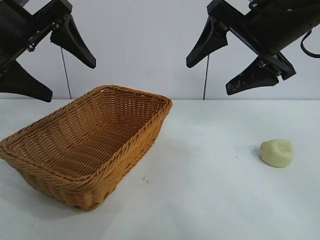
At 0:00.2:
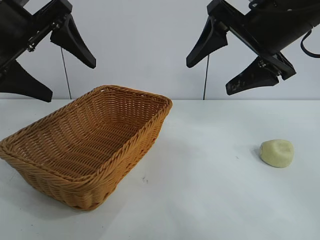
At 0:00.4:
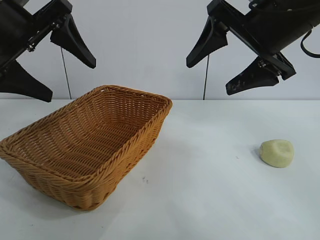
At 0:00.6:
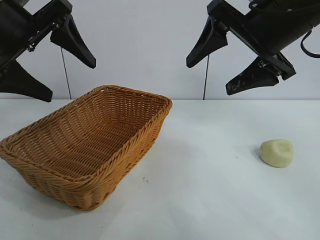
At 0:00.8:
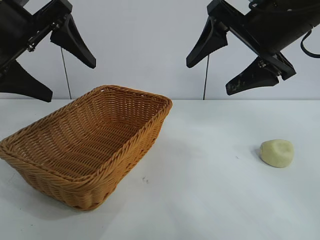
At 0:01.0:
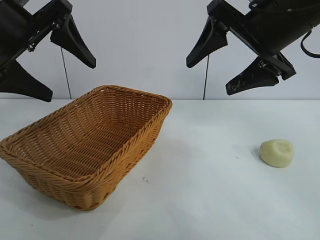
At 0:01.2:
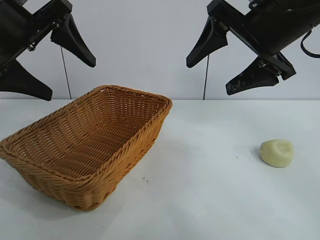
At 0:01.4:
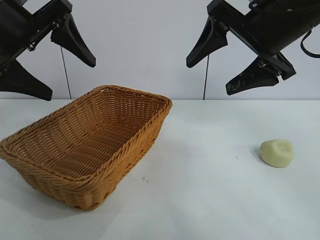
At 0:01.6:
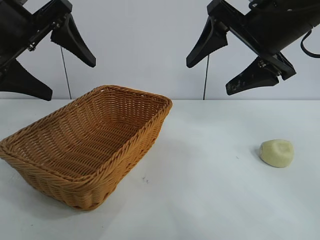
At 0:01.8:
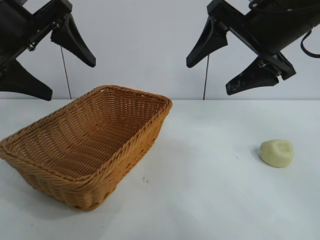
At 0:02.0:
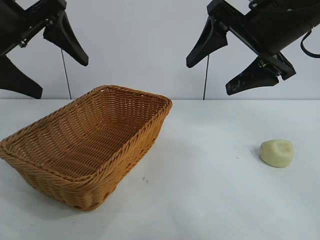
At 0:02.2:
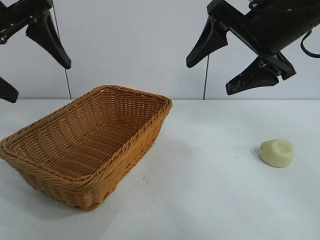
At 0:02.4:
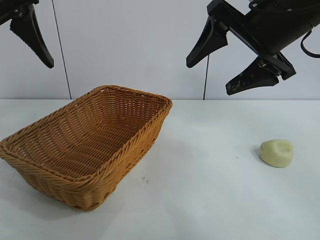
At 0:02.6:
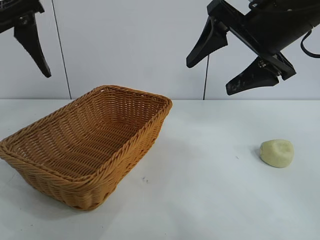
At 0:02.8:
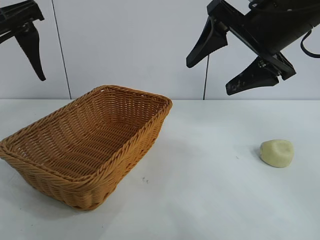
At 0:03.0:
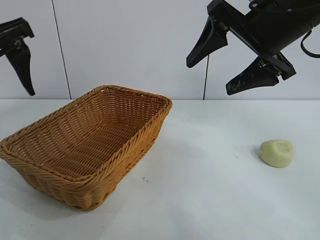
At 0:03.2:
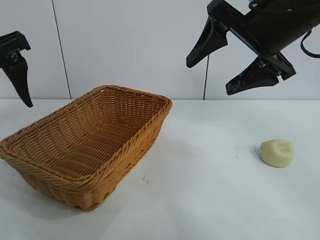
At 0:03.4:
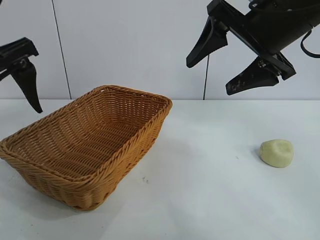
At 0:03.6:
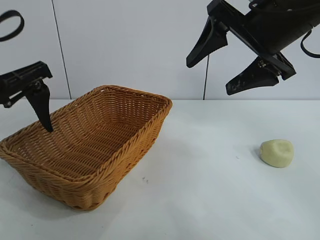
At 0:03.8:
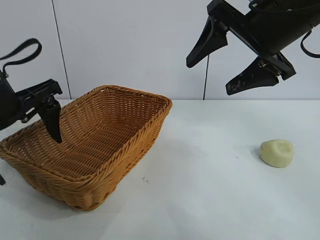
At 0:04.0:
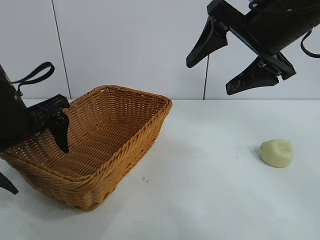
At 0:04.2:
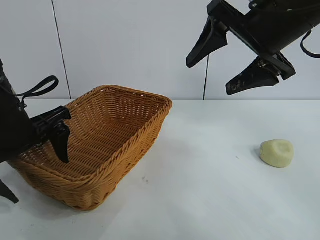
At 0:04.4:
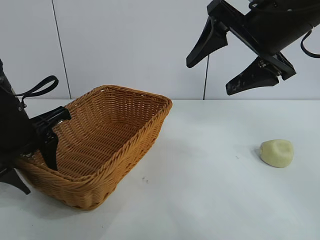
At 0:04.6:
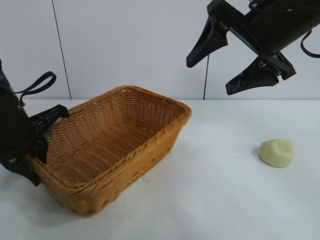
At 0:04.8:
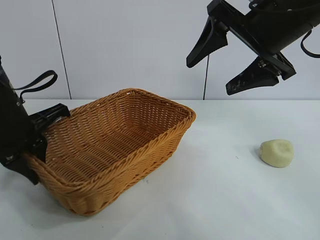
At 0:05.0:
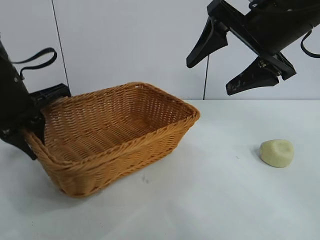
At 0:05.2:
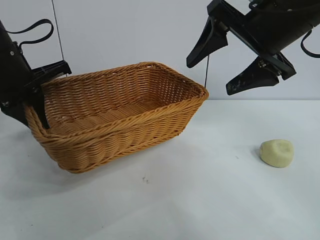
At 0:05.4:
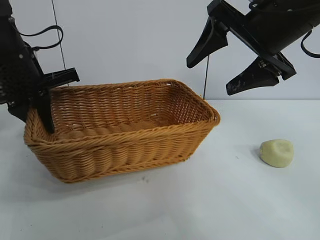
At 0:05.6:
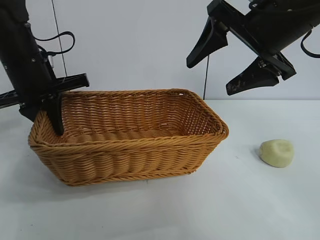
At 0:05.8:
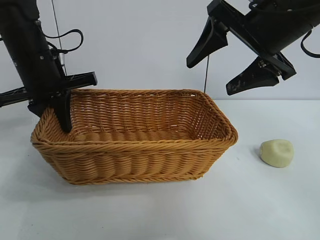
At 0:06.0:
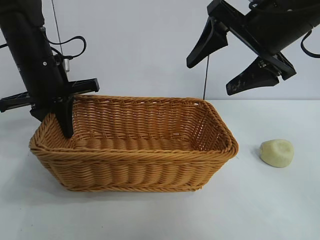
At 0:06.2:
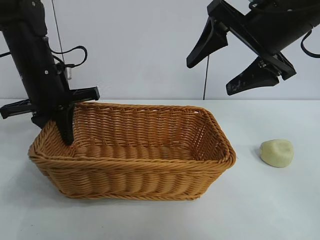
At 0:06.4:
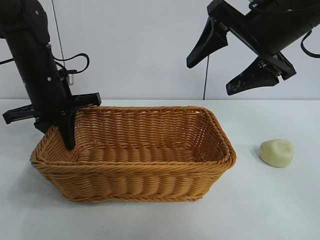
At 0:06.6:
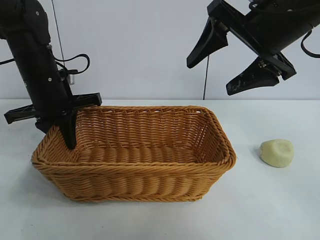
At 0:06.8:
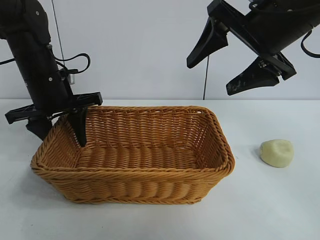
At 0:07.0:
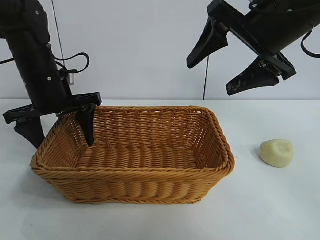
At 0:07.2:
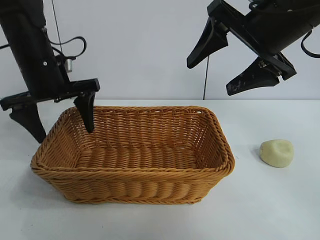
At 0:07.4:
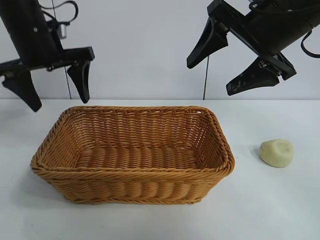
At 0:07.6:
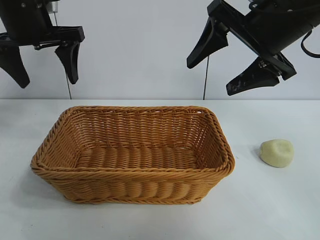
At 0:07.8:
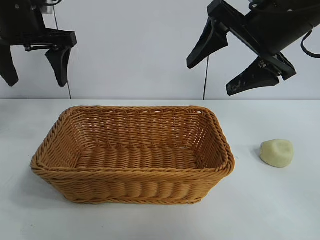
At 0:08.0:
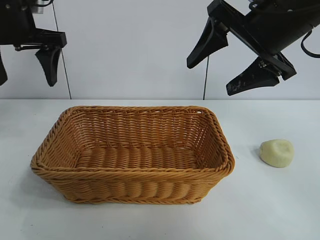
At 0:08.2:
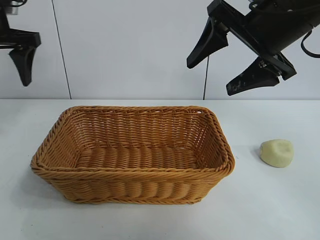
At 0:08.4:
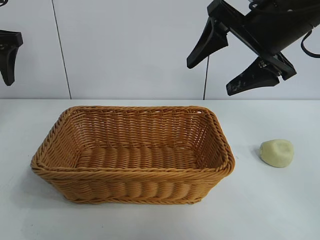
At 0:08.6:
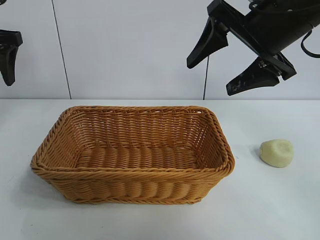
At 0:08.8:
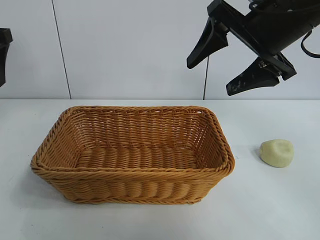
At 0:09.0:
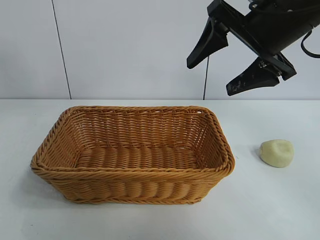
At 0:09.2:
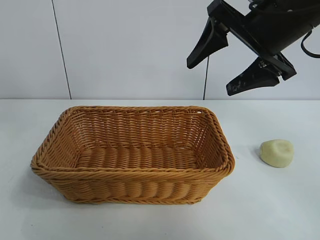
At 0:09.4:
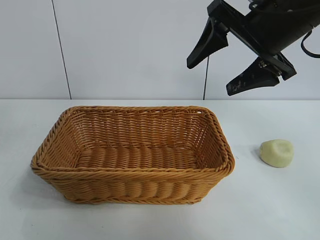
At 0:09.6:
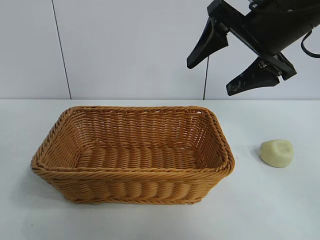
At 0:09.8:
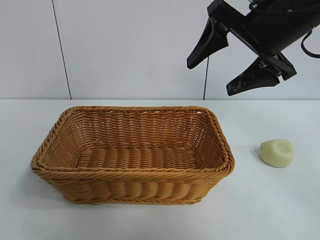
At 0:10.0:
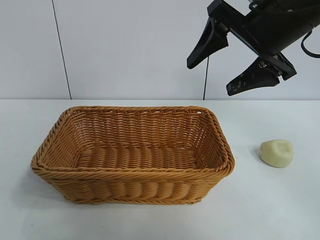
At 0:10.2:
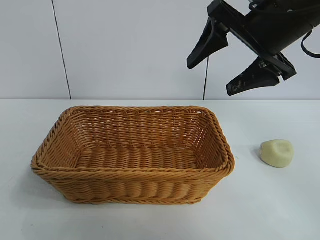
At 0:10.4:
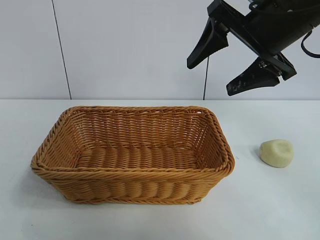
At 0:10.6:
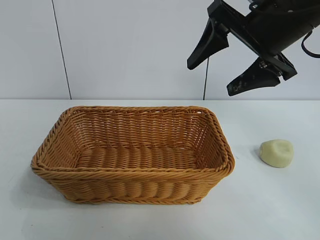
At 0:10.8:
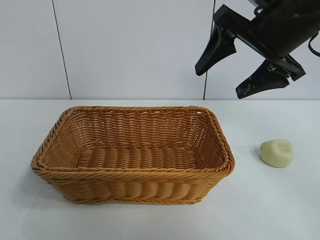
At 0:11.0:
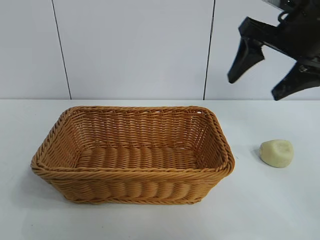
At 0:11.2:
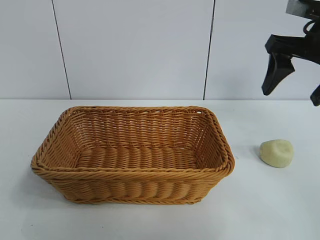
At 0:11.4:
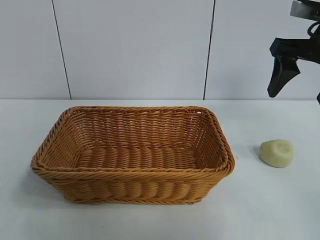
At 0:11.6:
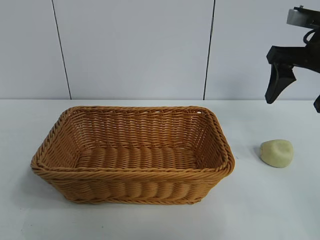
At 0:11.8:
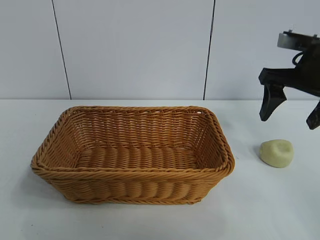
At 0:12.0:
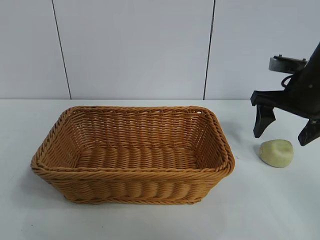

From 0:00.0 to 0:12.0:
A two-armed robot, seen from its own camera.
Task of the whole recording: pick up the egg yolk pastry and put it into the basket.
Step, from 0:01.0 to 0:04.4: Grasp the basket with left gripper.
Step, from 0:04.8 to 0:06.6: Place the basket in the center of view with left gripper.

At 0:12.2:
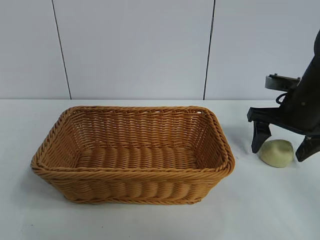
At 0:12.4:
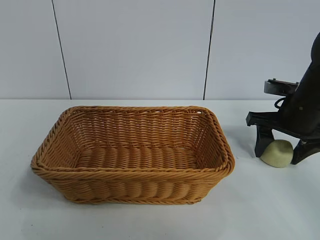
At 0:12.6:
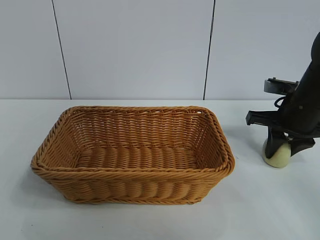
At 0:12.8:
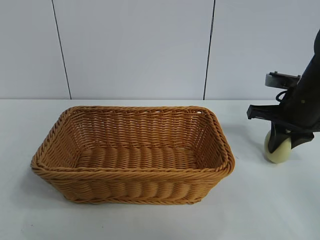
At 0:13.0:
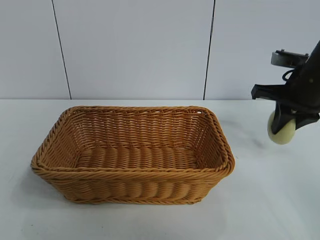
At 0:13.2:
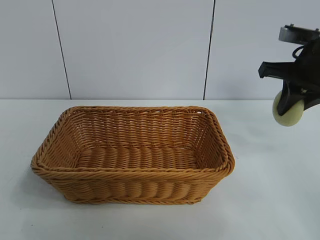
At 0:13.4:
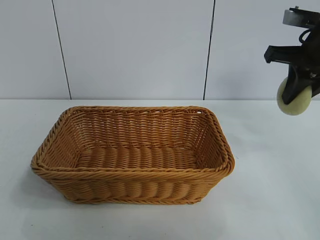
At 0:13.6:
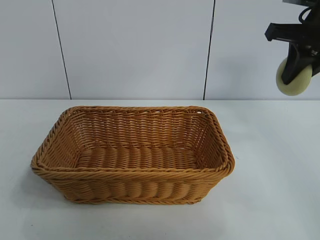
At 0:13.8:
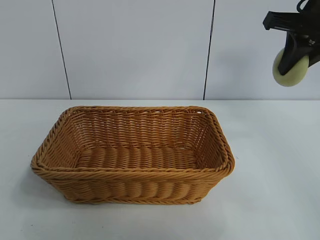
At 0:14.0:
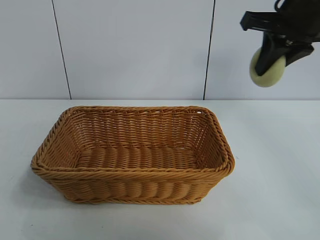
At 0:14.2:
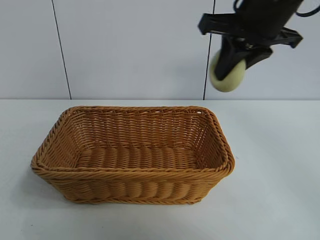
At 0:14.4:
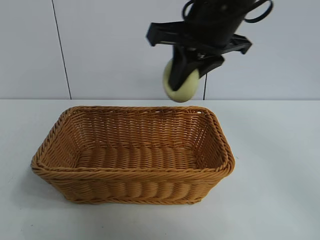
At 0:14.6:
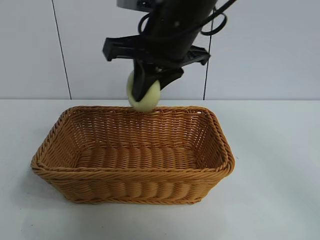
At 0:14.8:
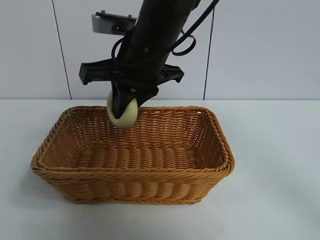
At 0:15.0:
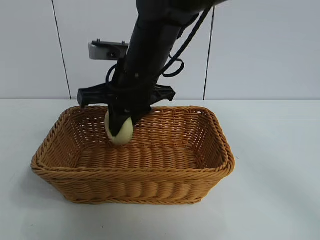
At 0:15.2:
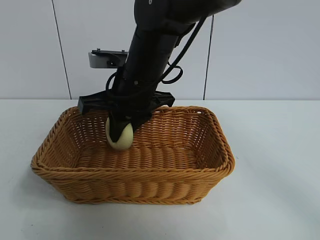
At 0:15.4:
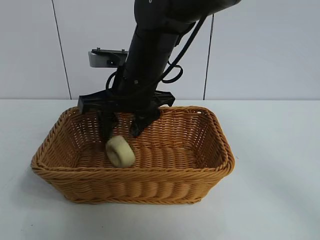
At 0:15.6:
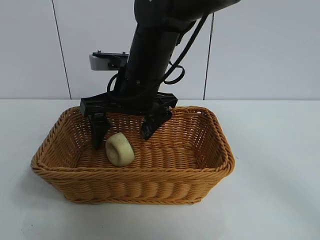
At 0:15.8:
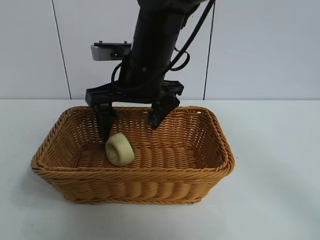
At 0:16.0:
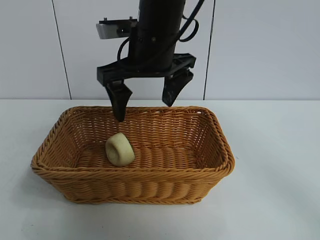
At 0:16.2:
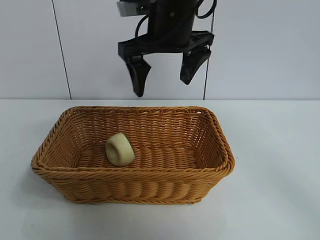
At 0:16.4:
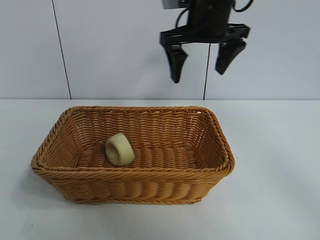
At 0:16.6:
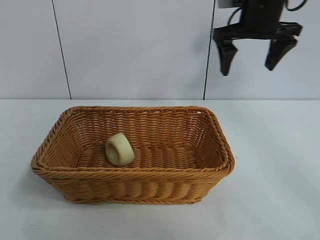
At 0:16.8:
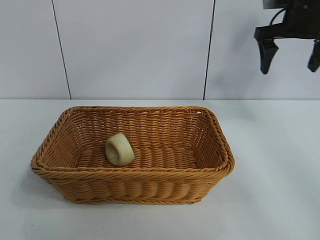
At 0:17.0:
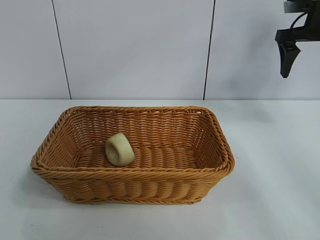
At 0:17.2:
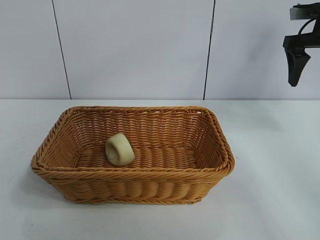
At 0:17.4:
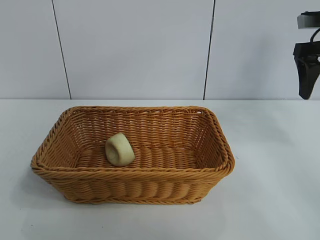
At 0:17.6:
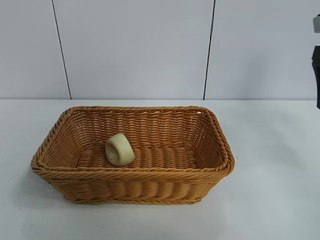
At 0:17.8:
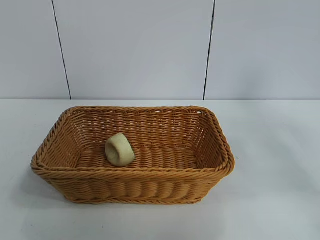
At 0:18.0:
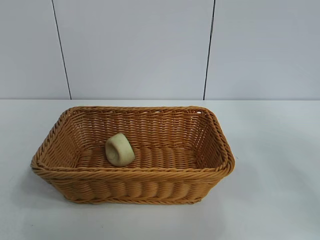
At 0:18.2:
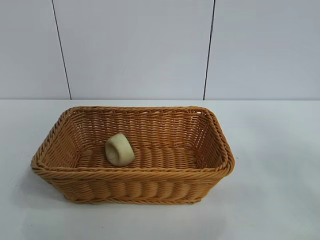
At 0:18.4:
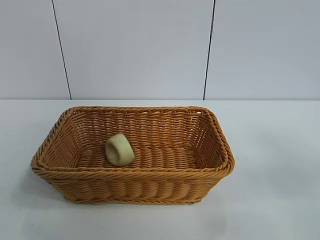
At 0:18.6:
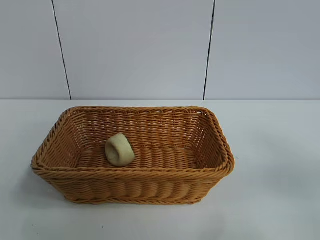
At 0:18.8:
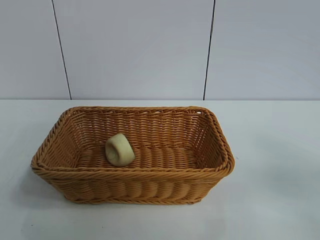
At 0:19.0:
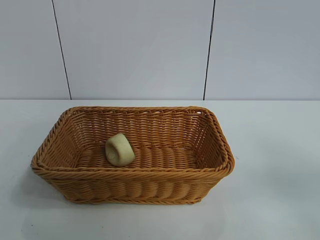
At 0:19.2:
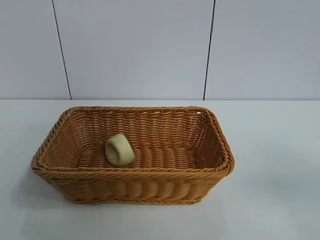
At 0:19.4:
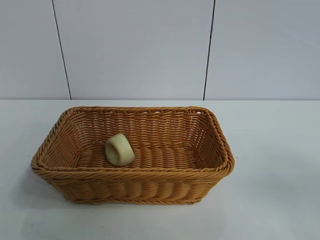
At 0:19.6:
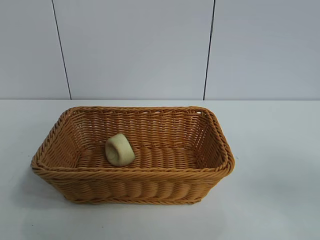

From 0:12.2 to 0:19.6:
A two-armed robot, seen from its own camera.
Task of the whole recording: pick up the egg yolk pastry and put it into the basket.
Step, from 0:12.8 to 0:15.4: Place the egg yolk pastry in the basket with right gripper.
